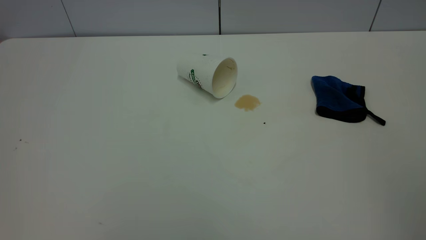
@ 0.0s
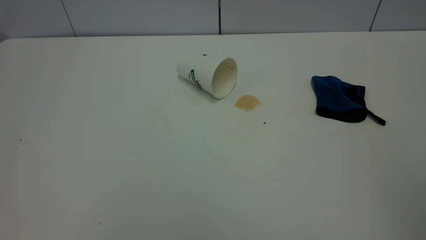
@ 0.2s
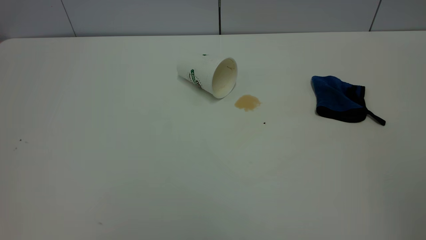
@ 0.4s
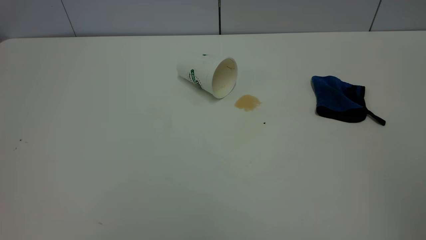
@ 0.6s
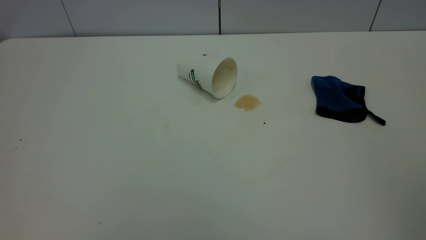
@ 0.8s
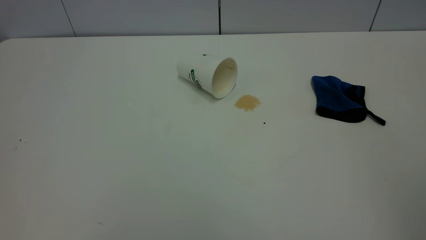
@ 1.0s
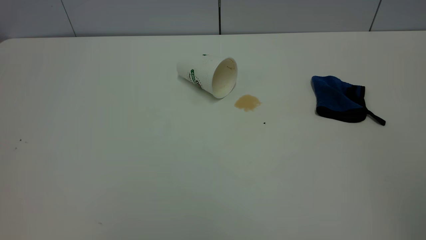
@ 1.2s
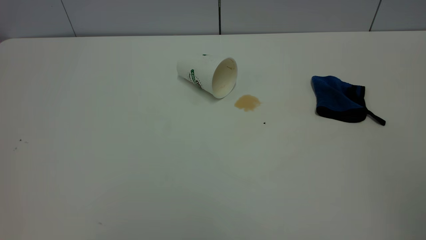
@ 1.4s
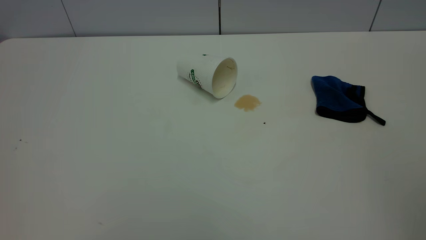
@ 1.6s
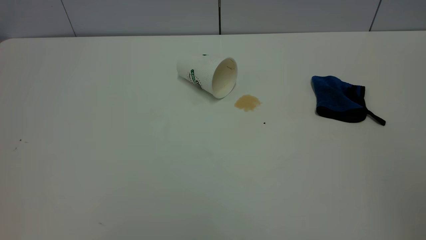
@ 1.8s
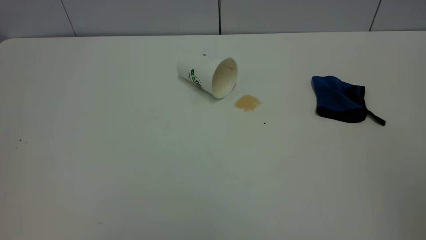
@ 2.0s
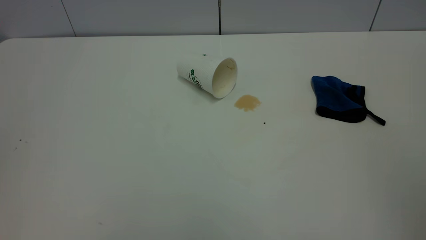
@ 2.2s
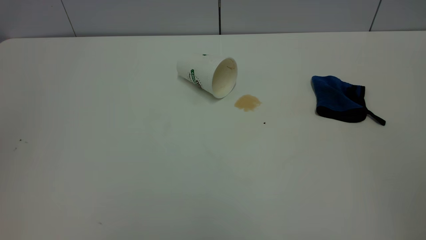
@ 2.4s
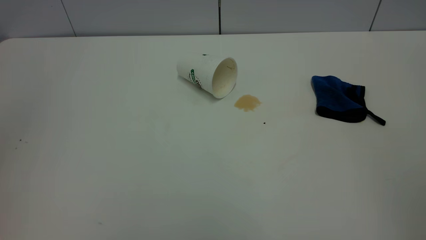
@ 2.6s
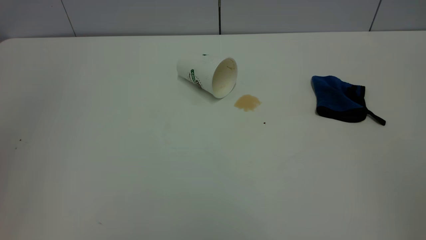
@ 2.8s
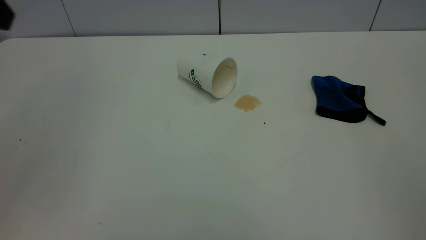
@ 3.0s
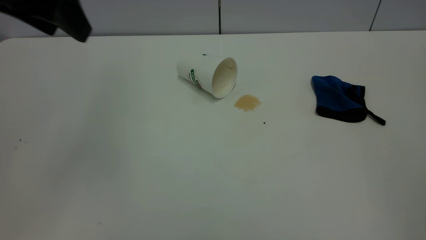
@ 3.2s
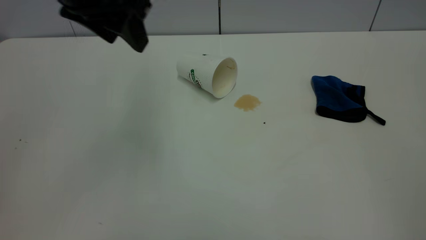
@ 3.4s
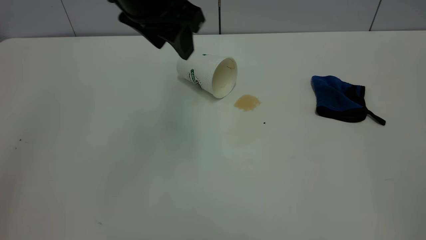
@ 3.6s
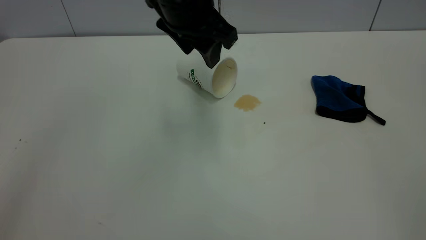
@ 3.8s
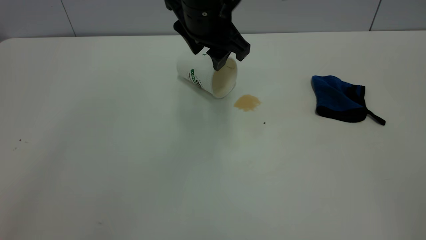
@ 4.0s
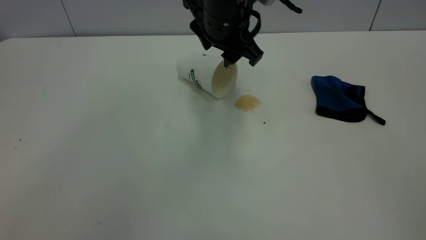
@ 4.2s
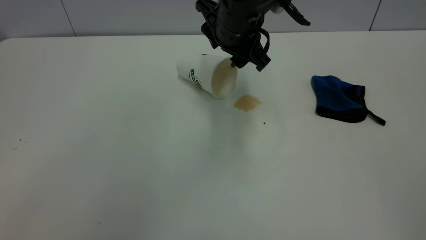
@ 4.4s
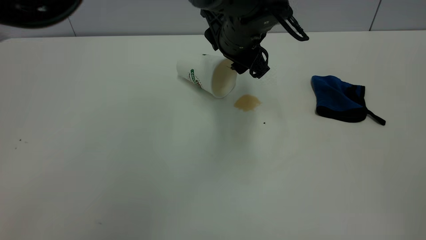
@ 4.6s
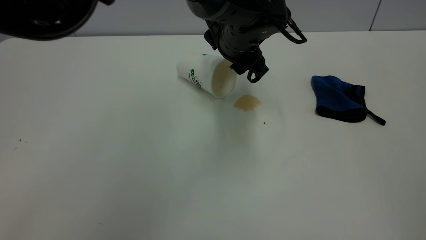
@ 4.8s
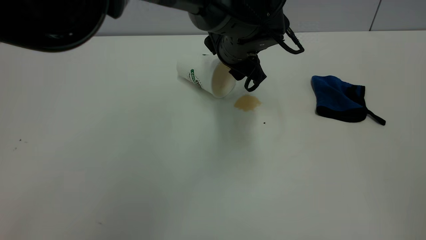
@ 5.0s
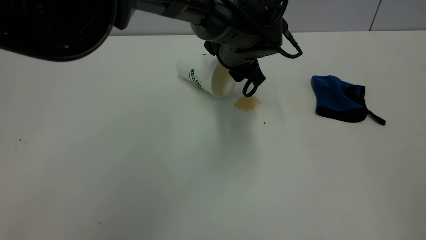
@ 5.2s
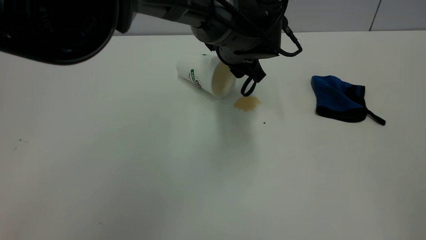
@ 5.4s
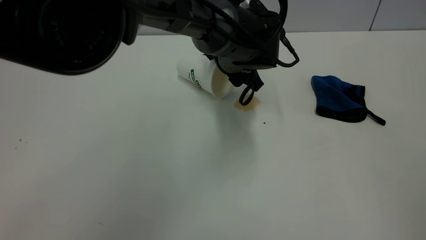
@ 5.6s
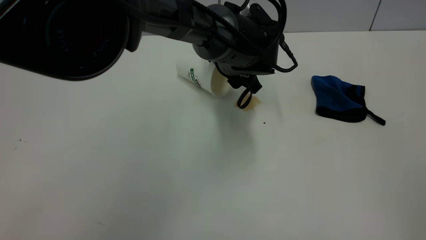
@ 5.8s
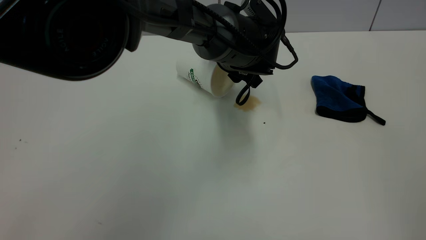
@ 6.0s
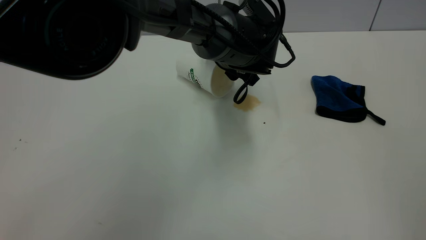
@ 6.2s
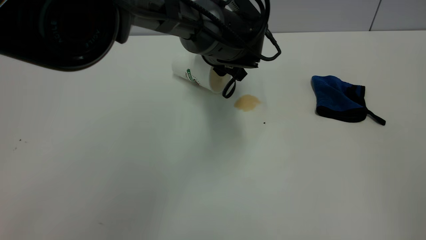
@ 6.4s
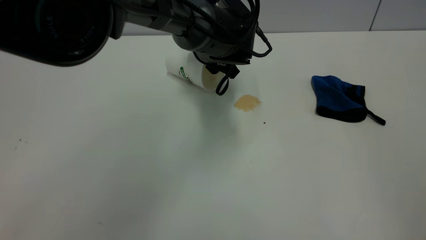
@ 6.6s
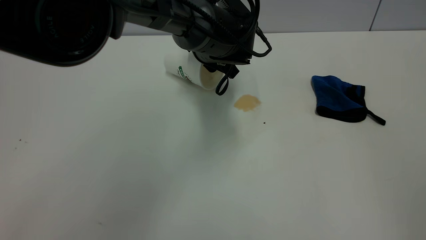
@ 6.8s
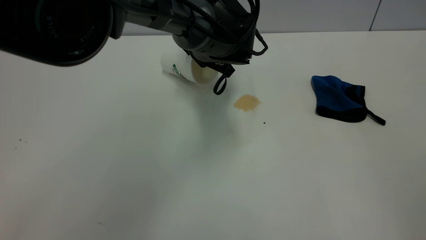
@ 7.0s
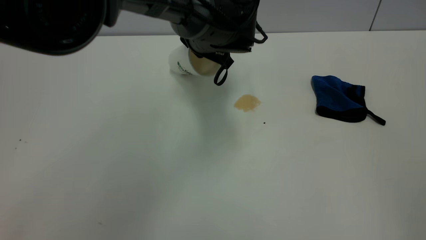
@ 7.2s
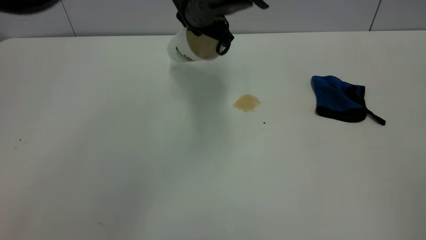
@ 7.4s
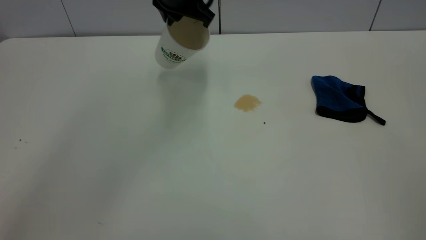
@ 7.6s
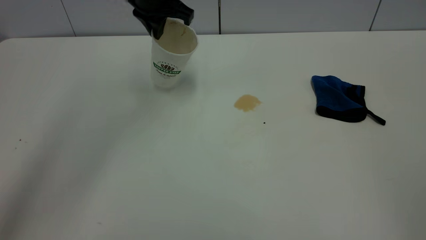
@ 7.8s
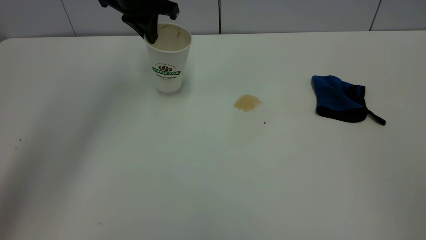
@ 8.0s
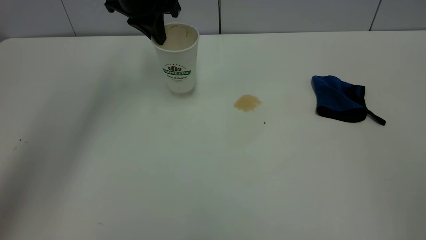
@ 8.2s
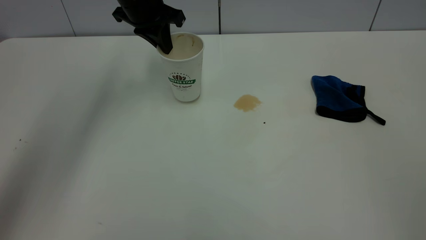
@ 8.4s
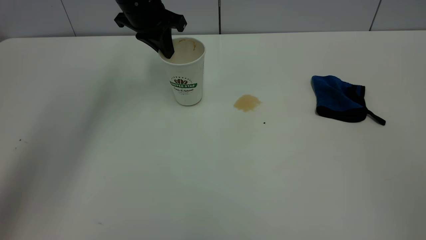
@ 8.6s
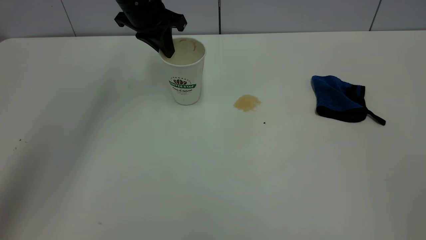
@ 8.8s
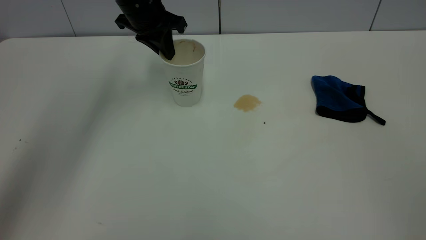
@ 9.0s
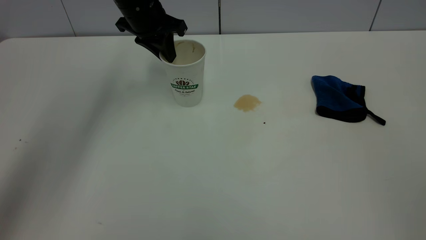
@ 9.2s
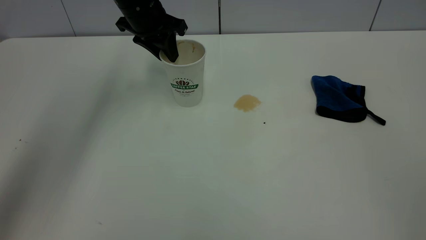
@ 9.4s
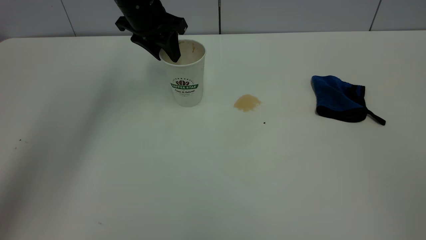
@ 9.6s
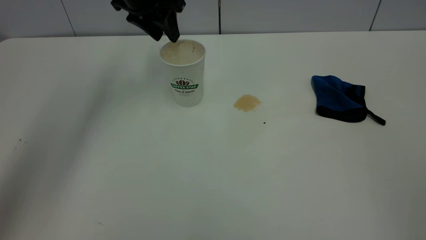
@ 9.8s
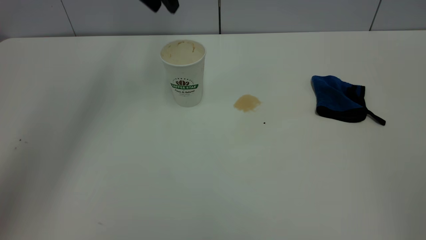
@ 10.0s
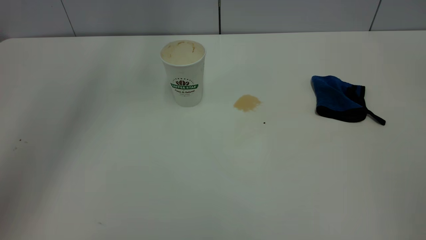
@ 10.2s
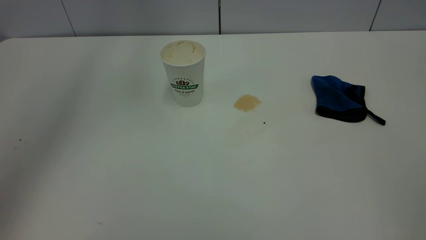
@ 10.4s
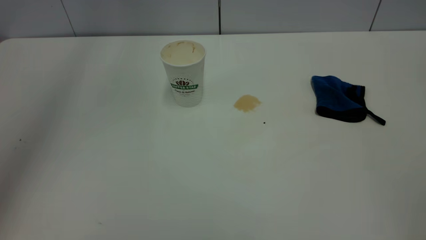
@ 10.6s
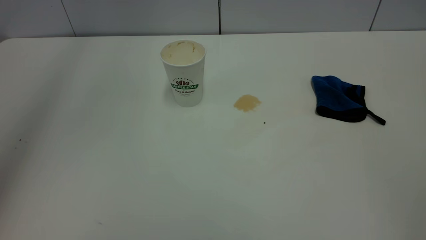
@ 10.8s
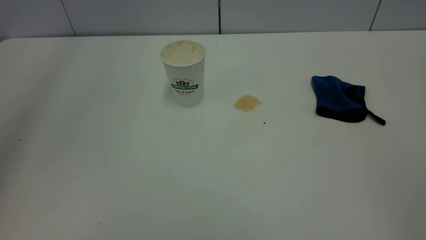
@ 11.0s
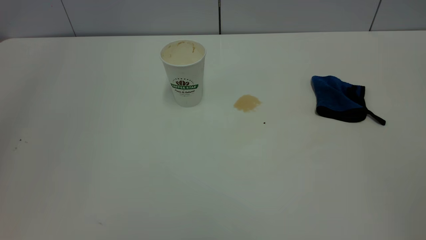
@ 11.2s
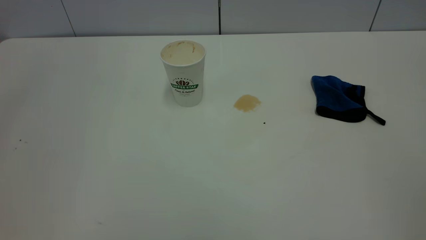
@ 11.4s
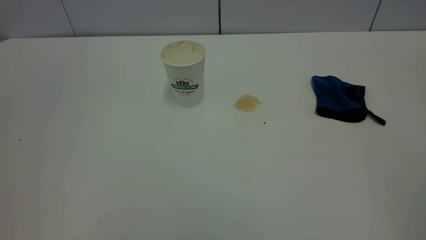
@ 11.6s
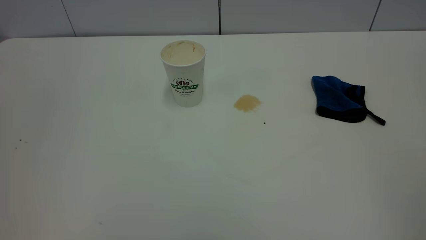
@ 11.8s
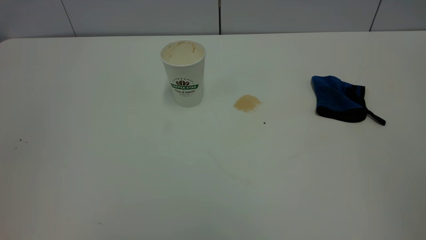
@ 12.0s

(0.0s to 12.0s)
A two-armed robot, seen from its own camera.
Task of the whole recording: the left gripper pick up the fallen cup and place it upright, the right gripper grasp the blue rag and wipe the tea stain on the table, the right gripper put the blue rag back in its original position.
Step, 0.0s - 9.8s: Stand the paper cup upright.
0.0s - 1.6s: Neither gripper changes place.
3.0s - 4.4s: The left gripper goes some 35 cm to the right, downward and forward.
4.4s - 6.0s: The left gripper heads downward, covering about 5 cm.
6.0s - 7.6s: The left gripper travels upward, to the left and forward by about 15 cm, and closes its fingers.
7.6s - 9.0s: The left gripper goes roughly 10 cm to the left.

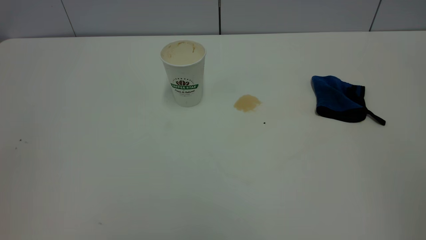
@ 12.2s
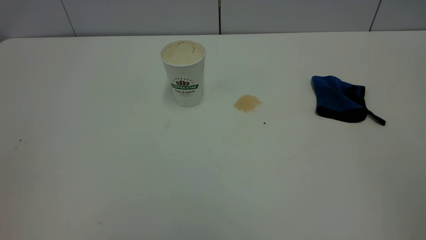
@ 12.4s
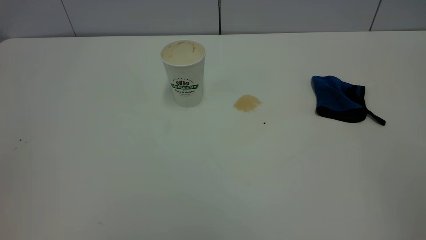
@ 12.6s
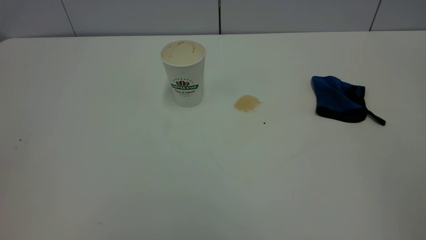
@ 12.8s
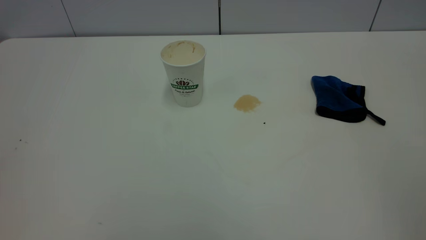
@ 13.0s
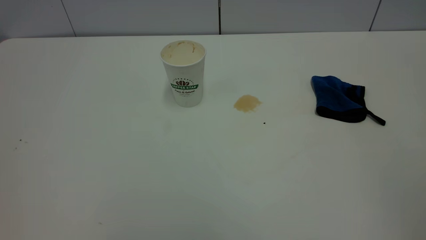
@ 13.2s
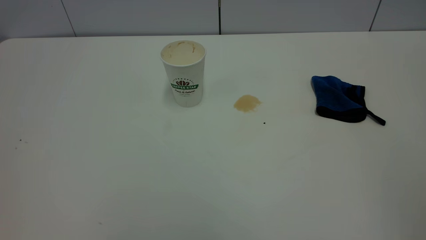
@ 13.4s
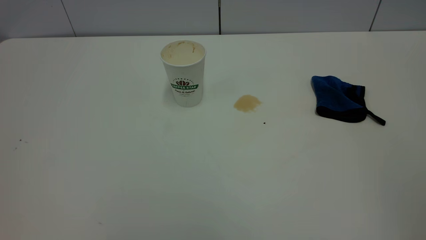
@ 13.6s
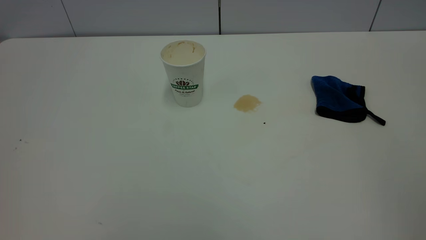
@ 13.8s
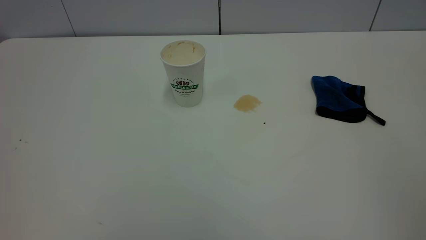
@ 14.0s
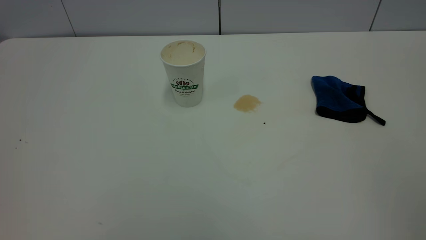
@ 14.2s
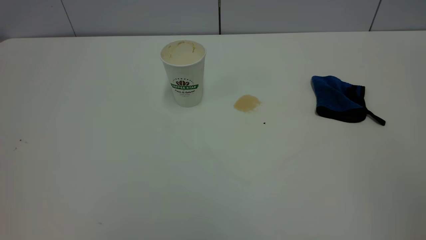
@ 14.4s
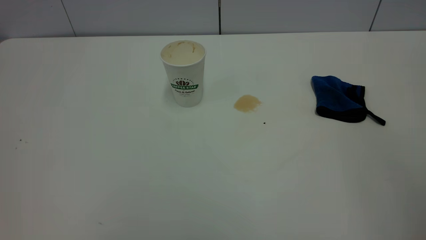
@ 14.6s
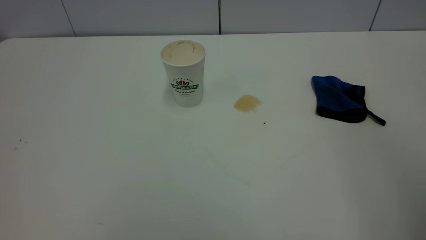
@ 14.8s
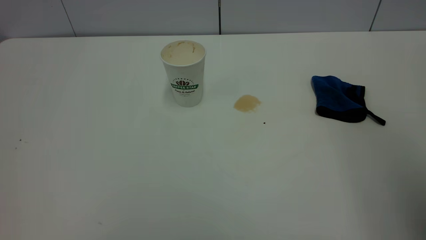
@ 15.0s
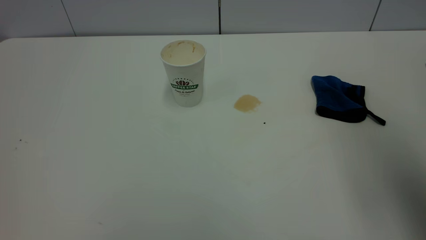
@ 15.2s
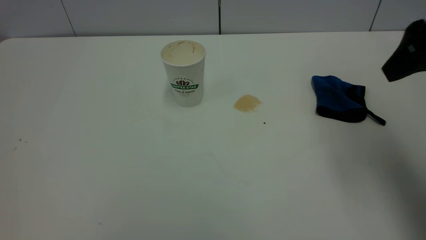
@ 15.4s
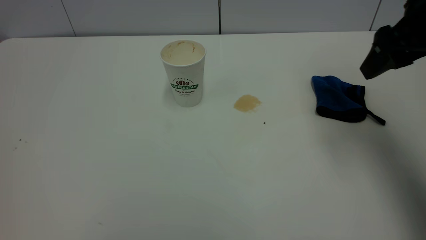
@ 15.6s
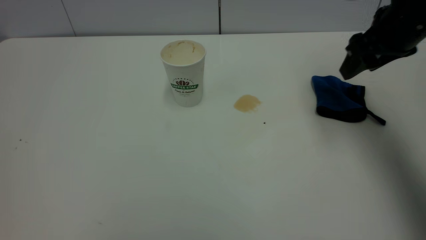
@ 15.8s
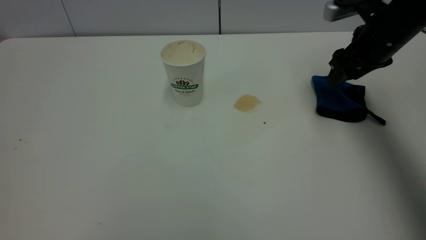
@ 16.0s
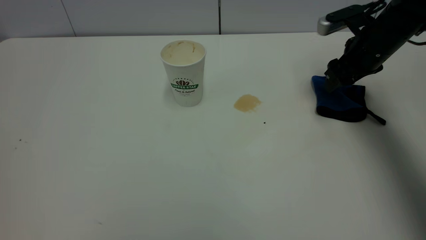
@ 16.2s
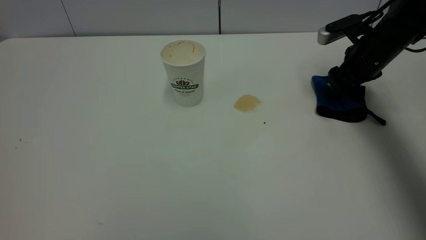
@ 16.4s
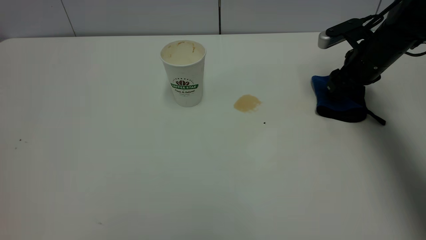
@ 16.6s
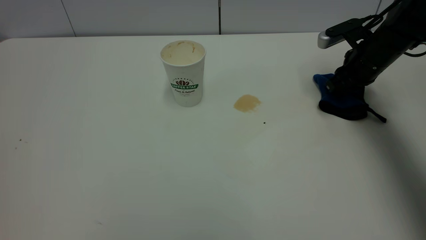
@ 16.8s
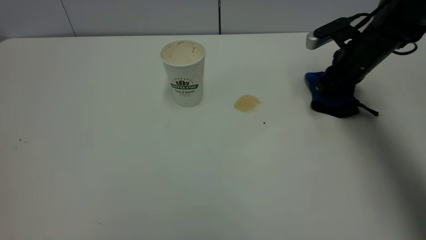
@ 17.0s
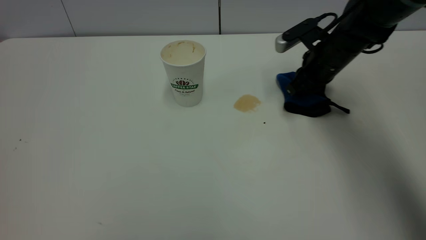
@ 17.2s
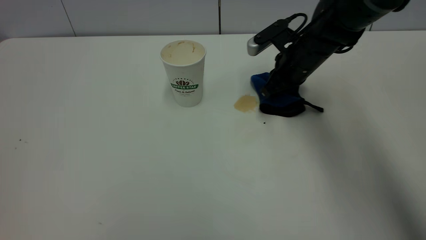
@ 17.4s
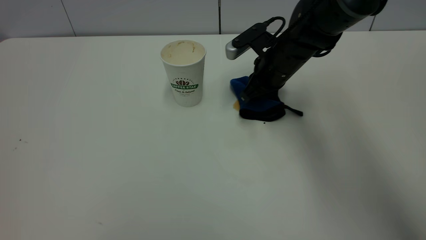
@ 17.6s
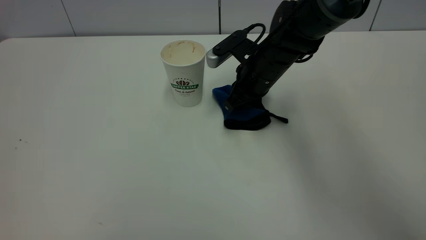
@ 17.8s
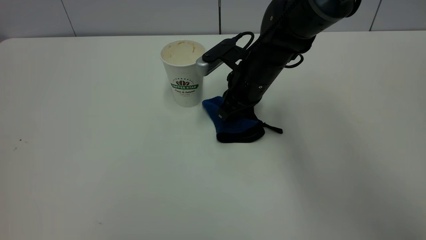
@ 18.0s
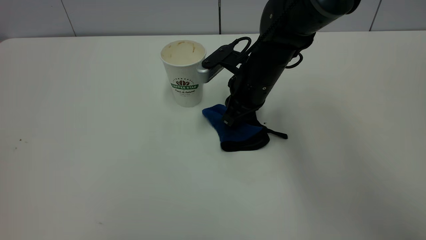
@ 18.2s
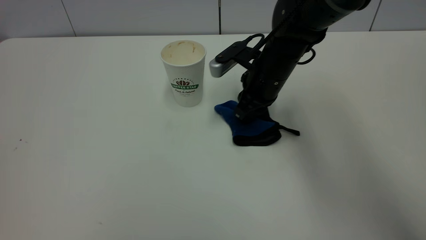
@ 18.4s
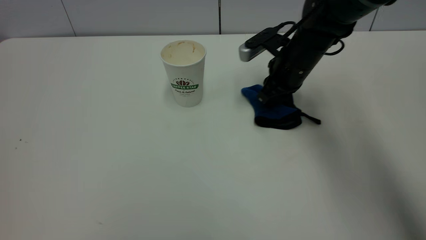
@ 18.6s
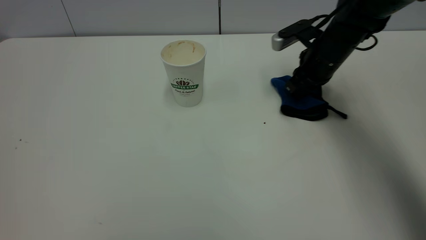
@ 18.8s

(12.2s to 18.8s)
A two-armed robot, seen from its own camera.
Task of the whole recording: the left gripper pick up the fallen cup and place it upright, the right gripper grasp the blue rag and wipe the tea stain on the table, the right gripper put the blue rag back in its original position.
13.8s - 15.4s: The right gripper moves forward, about 30 cm.
15.4s - 17.2s: The right gripper moves forward and downward, about 25 cm, and closes its fingers.
17.2s - 18.8s: The right gripper moves some 10 cm to the left and comes back.
